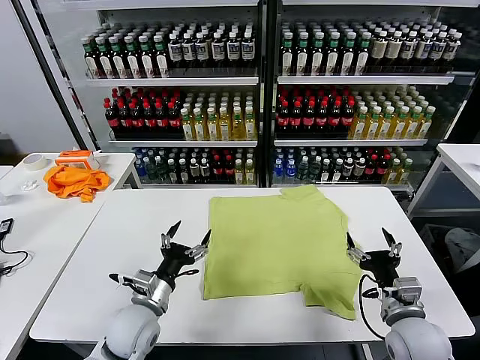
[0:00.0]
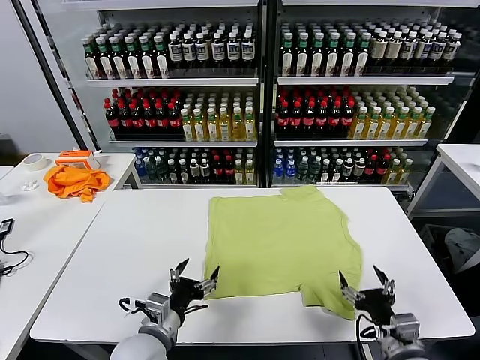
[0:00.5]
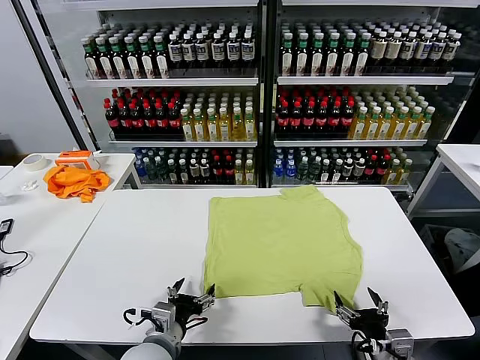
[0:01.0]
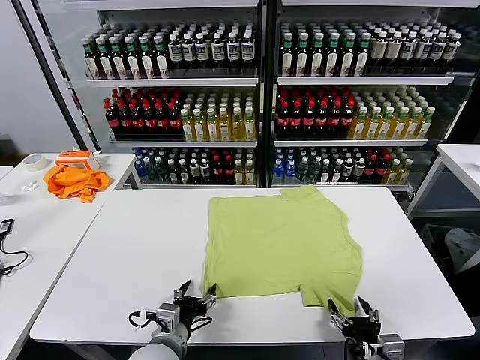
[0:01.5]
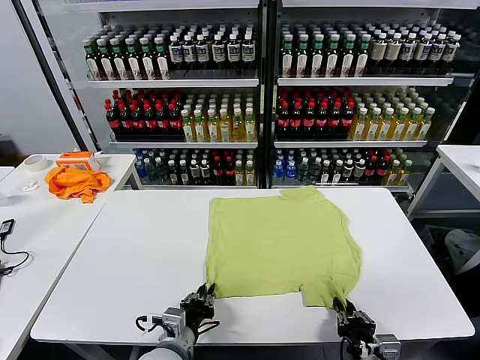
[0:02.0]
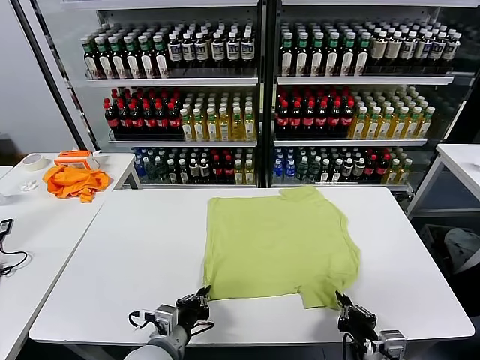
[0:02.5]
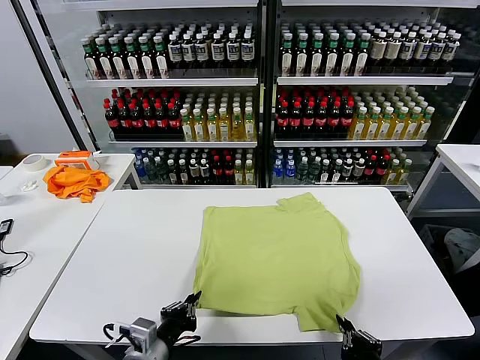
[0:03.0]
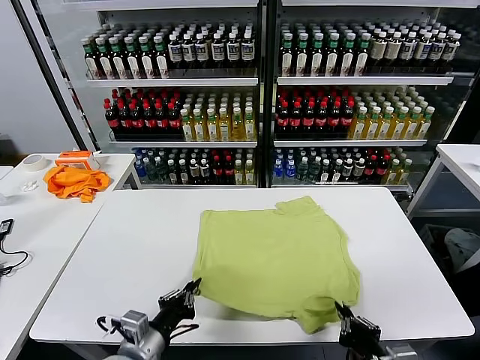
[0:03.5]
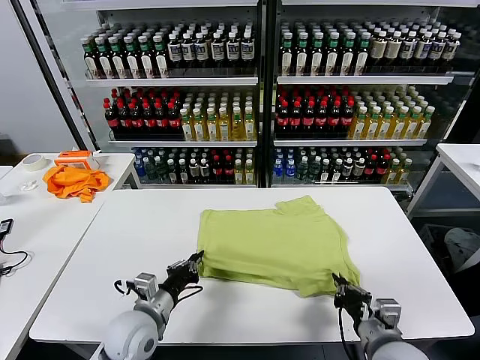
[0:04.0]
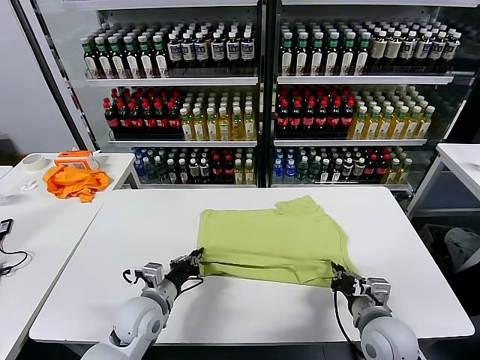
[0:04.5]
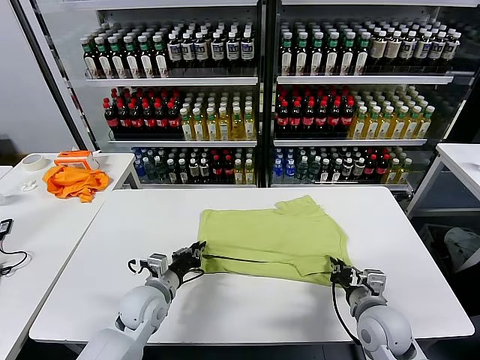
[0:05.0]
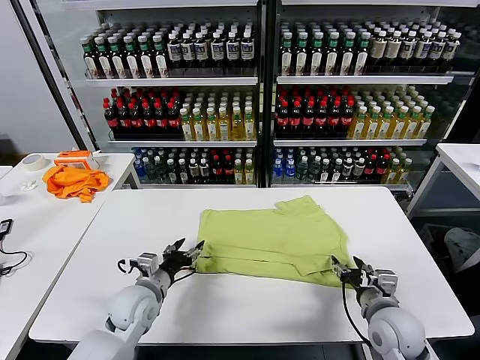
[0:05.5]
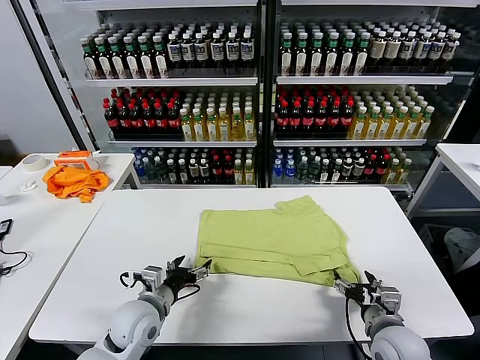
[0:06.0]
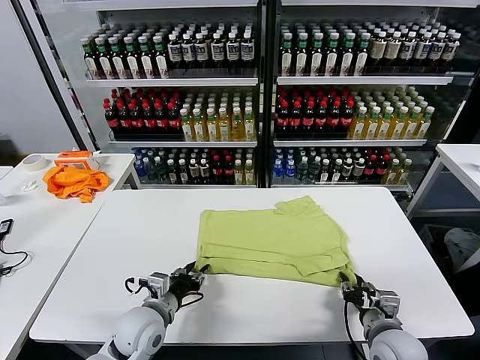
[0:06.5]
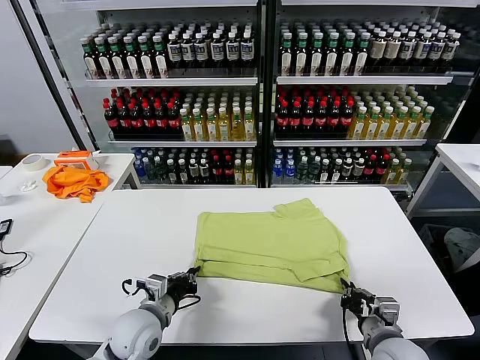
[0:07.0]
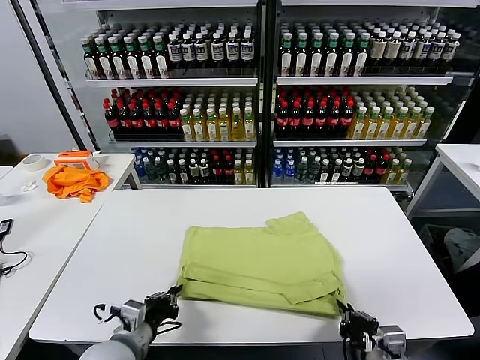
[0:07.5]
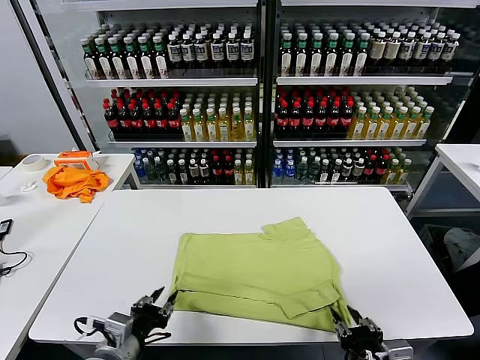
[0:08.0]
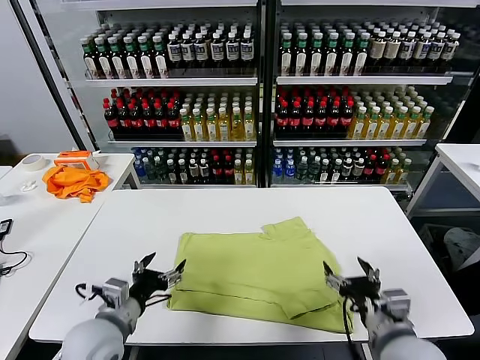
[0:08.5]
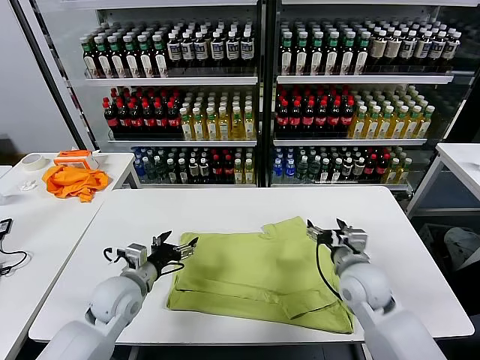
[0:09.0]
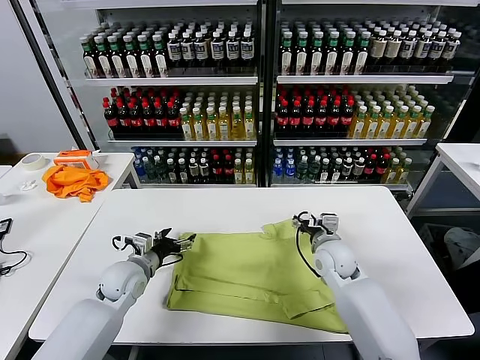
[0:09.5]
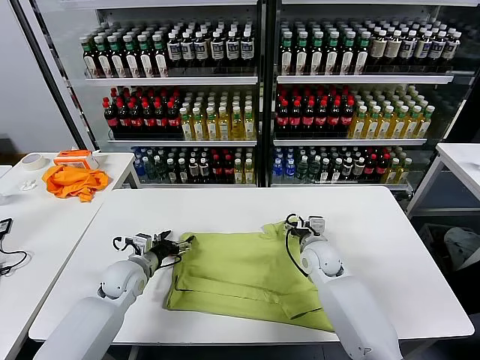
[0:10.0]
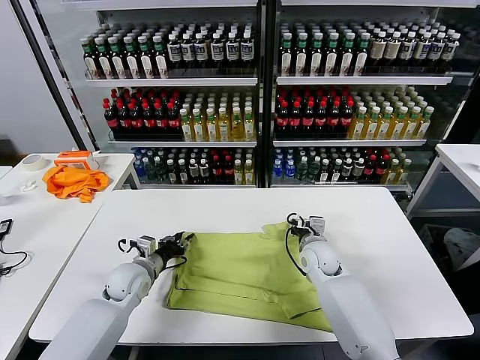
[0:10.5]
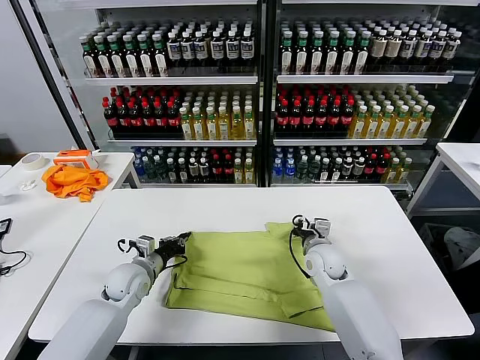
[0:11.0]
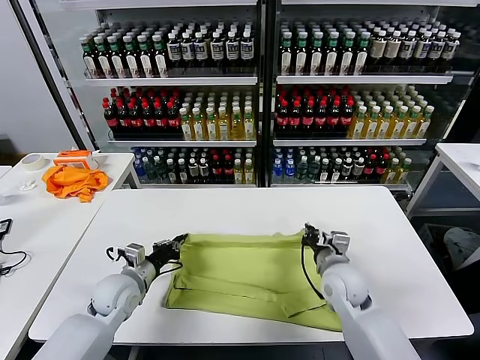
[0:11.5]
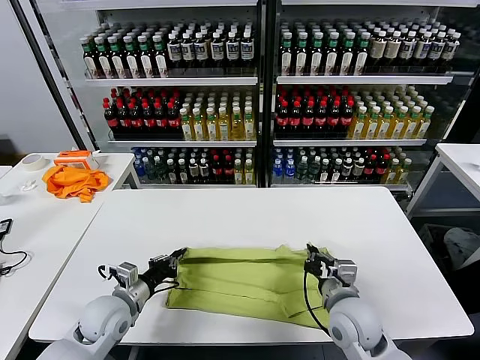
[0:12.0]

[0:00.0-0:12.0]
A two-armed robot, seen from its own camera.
Task of the whole recording: fold and organize the clothes.
Step, 0:00.0 to 0:02.0: use both grippers simultaneously to clamp the lower edge of the clothing fabric.
Step, 0:02.5 to 0:05.0: use both grippers to drag the lower edge of the fabric forward and fold it over the upper edge.
Step, 0:05.5 to 0:07.5: Drag the clothes downward with both gripper.
Step, 0:08.0 to 0:10.5: use both grippers simultaneously to clamp the upper edge of the clothing fabric.
0:02.0 to 0:04.0: The left gripper heads forward and to the left, covering about 10 cm, while the right gripper moves forward, roughly 5 cm.
0:04.0 to 0:06.0: The left gripper opens. Meanwhile the right gripper opens.
0:06.0 to 0:08.0: The two grippers go about 15 cm backward and upward. The left gripper closes its fingers, while the right gripper closes, then reopens.
0:08.0 to 0:10.0: Both grippers move forward, approximately 30 cm. The left gripper opens its fingers.
0:10.0 to 0:12.0: The left gripper travels backward by about 10 cm, and closes up; the right gripper is displaced backward by approximately 20 cm, and closes its fingers.

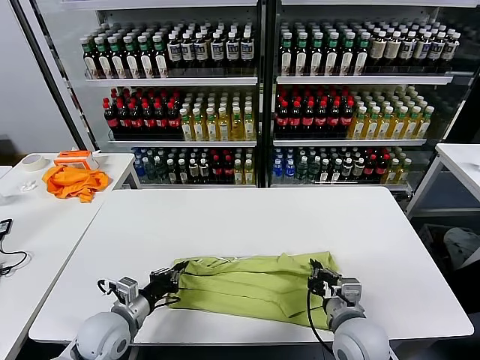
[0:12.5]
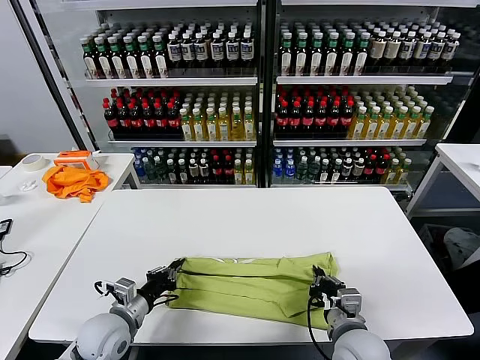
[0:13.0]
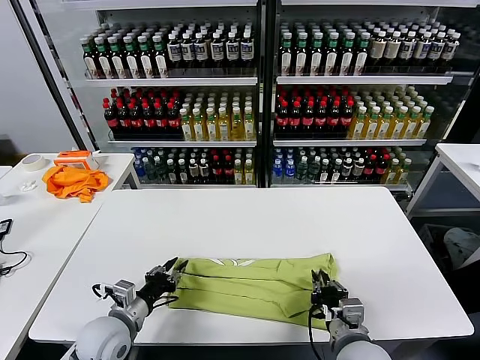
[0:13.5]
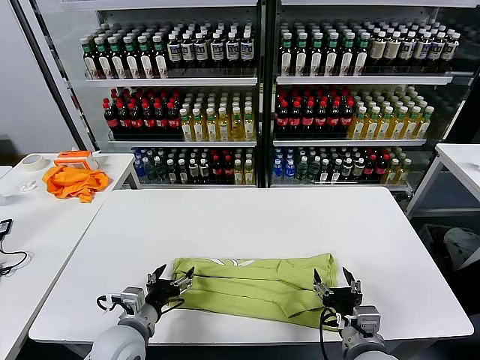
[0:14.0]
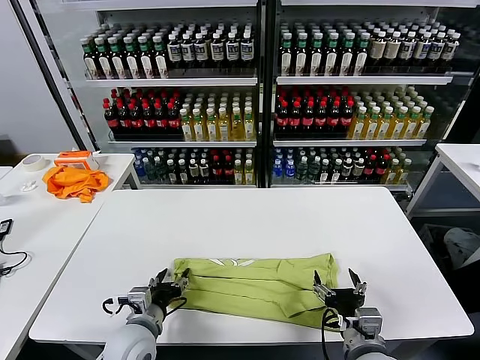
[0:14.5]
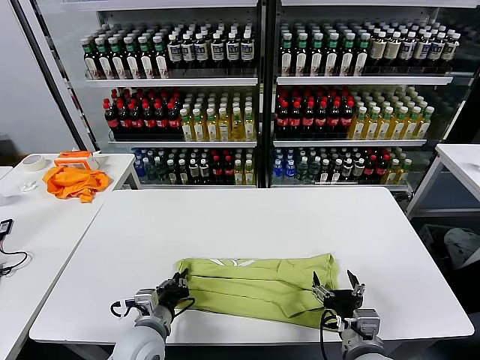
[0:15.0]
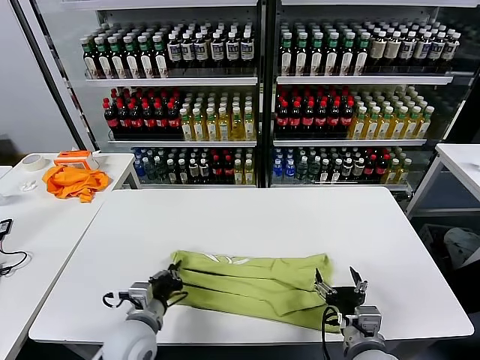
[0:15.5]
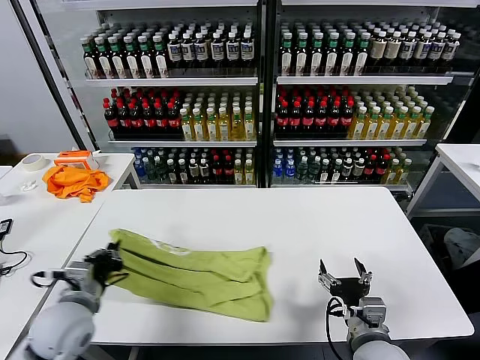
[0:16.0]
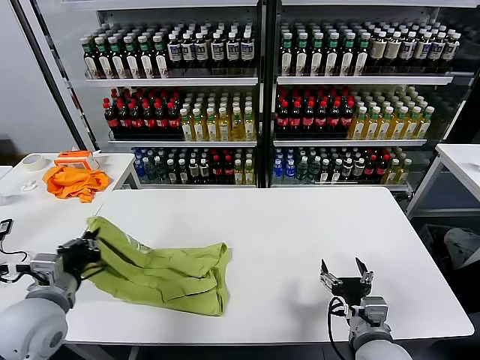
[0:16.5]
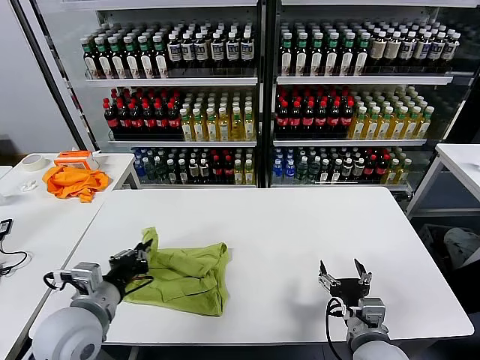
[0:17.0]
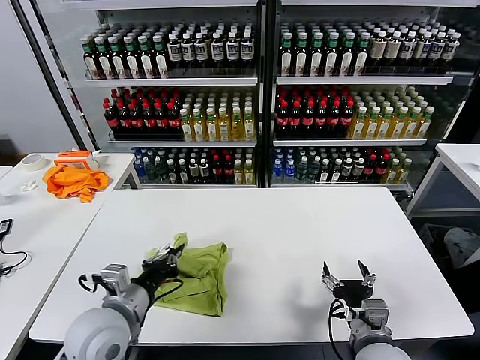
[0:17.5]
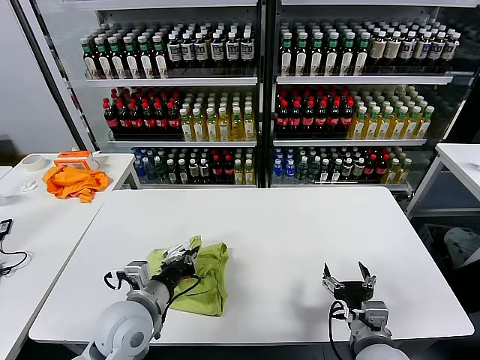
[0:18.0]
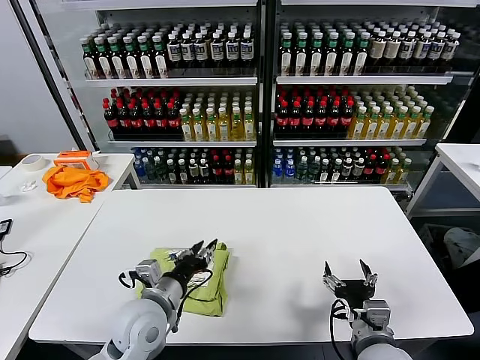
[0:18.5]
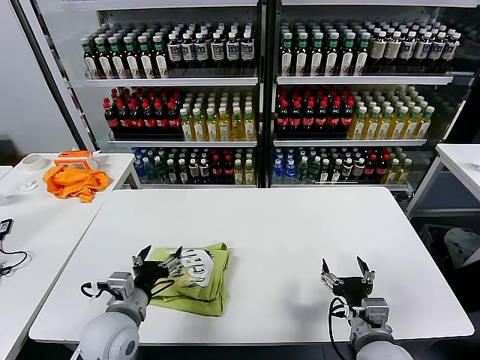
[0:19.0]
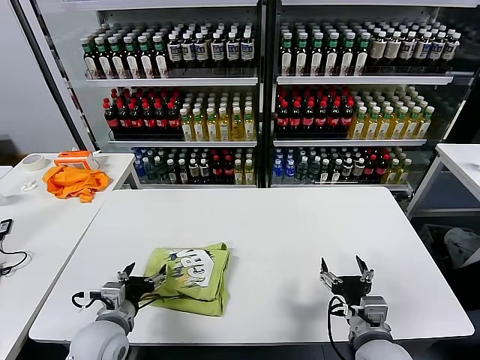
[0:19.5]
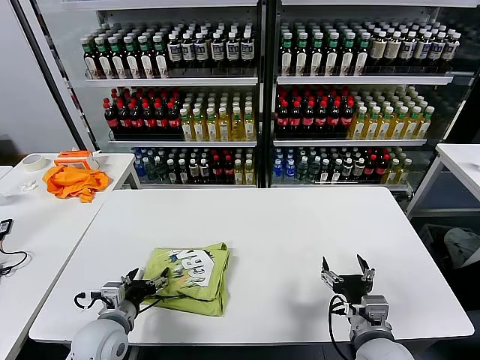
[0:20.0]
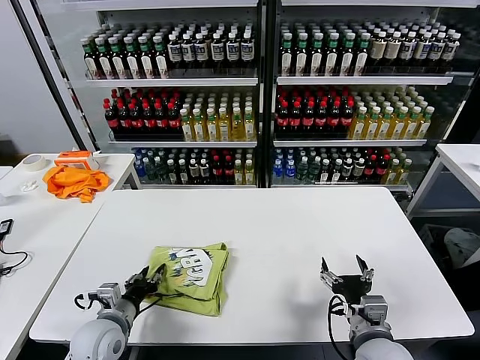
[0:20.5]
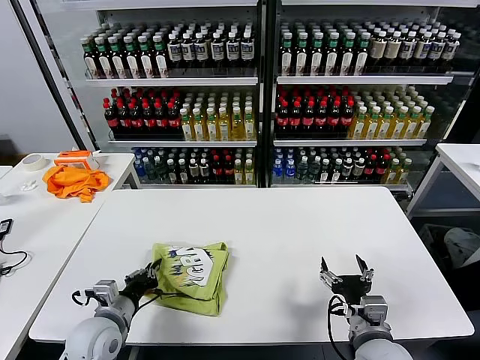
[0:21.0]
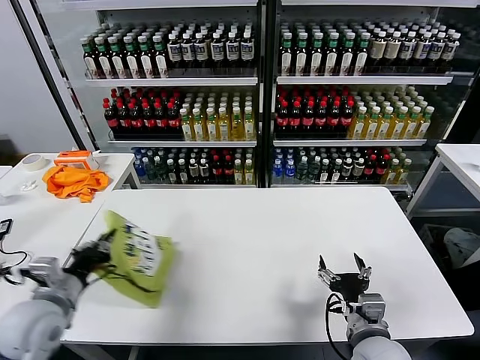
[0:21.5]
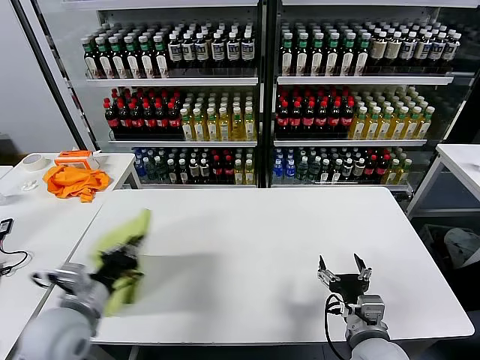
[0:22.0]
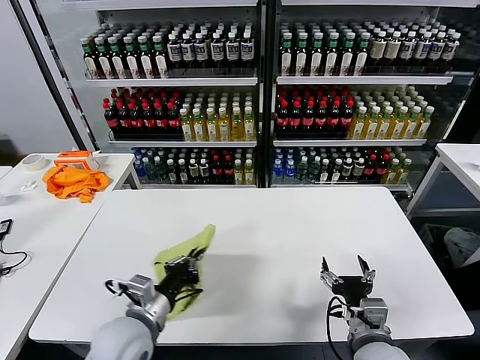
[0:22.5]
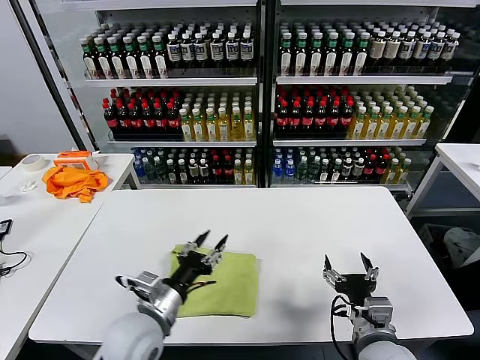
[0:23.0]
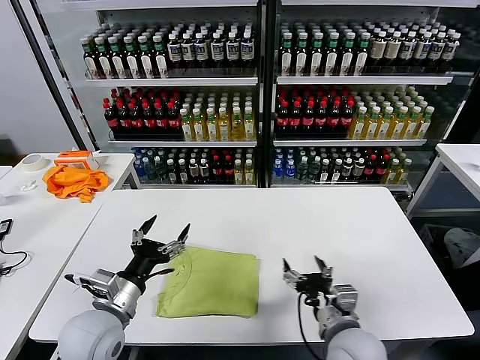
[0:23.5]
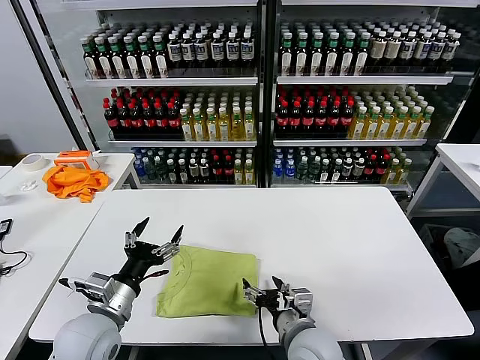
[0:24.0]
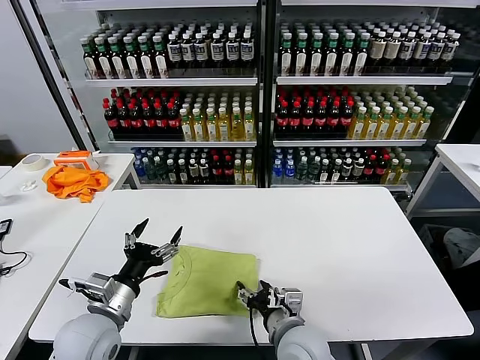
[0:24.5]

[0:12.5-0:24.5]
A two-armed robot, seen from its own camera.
Task of the whole recording: fold and organize the clothes.
Step, 0:14.0 to 0:15.0: use the left gripper to clamp the left edge of the fabric.
Step, 0:15.5 to 0:18.0: use the left gripper to drag the left edge of the fabric to the left and folds it over the right edge.
Step, 0:18.5 to 0:22.5: Flip the folded clothes over with left gripper.
0:12.5 to 0:14.5: The left gripper moves to the right, some 5 cm, and opens; the right gripper travels backward by roughly 5 cm, and opens.
0:14.5 to 0:16.5: The left gripper moves upward and to the left, approximately 20 cm, and closes its fingers.
0:16.5 to 0:18.5: The left gripper shifts about 15 cm to the right and downward, and opens.
0:18.5 to 0:20.5: The left gripper moves to the left and downward, roughly 15 cm, and opens, then closes again.
0:20.5 to 0:22.5: The left gripper travels upward and to the right by about 10 cm, and closes.
0:22.5 to 0:24.5: The right gripper shifts about 15 cm to the left. Meanwhile the left gripper shifts approximately 5 cm to the left, and opens up.

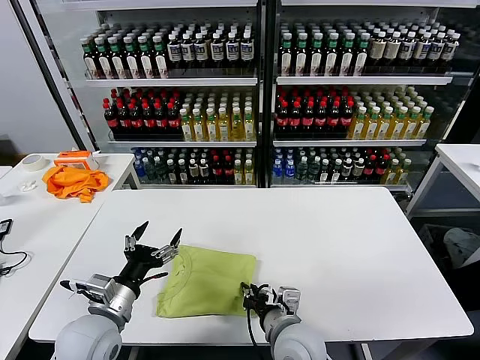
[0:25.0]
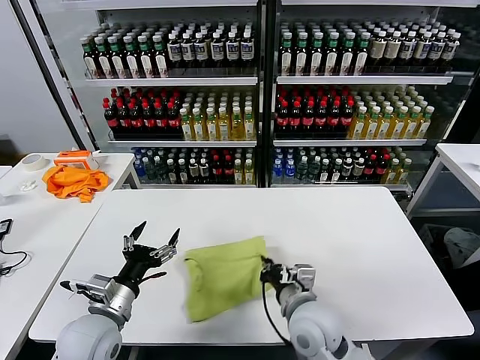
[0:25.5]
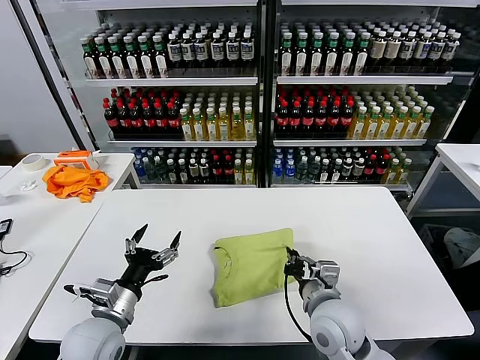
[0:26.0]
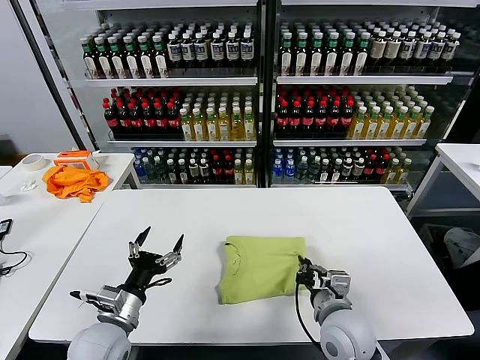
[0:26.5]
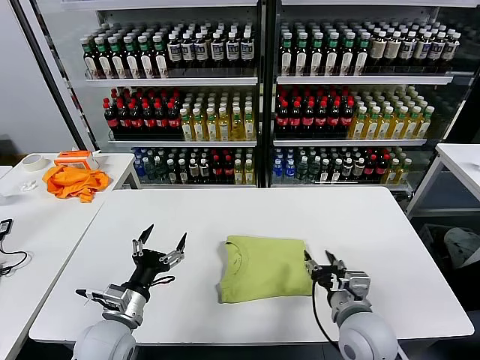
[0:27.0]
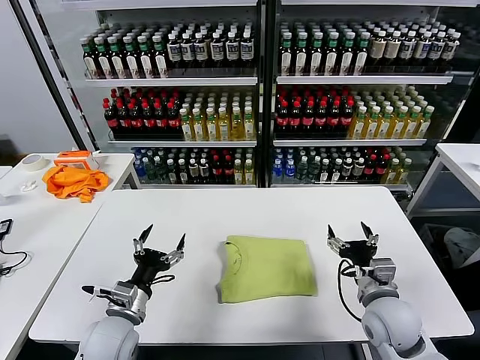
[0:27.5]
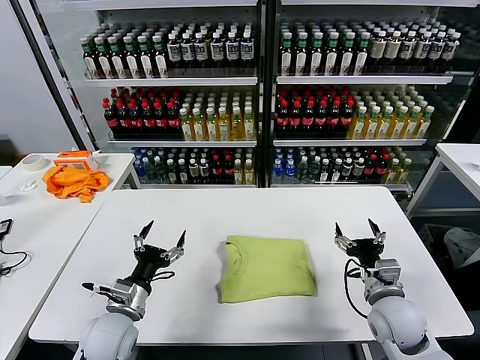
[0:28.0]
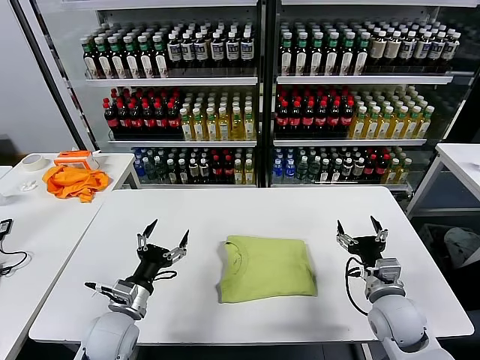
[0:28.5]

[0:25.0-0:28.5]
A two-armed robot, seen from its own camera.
Task of the whole recording: fold and organize the clothes.
0:25.0 to 0:27.0: The right gripper goes approximately 10 cm to the right.
0:27.0 to 0:28.5: The right gripper travels to the right by approximately 10 cm, and opens.
